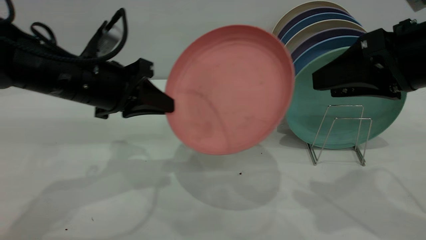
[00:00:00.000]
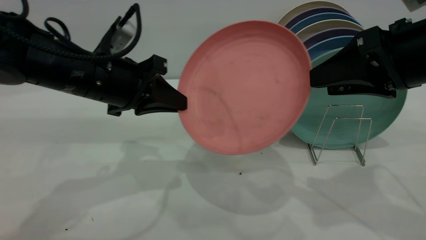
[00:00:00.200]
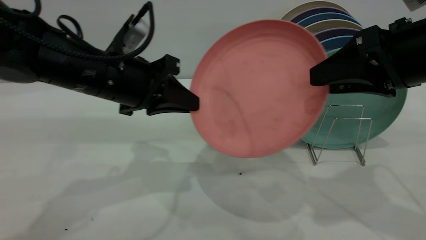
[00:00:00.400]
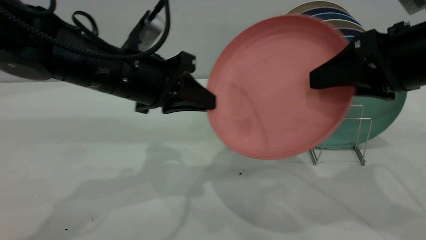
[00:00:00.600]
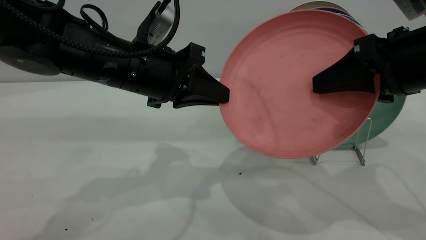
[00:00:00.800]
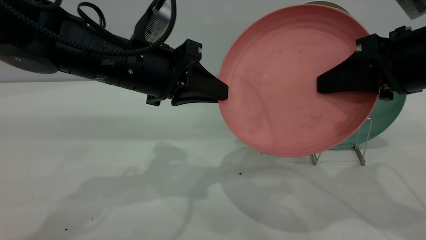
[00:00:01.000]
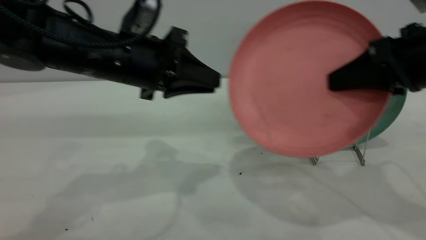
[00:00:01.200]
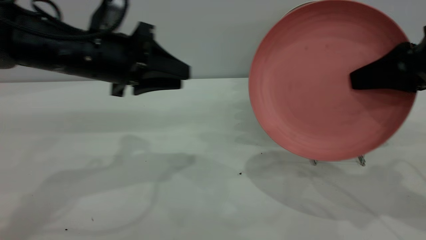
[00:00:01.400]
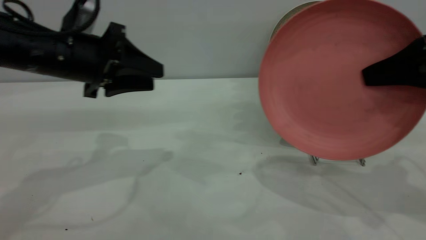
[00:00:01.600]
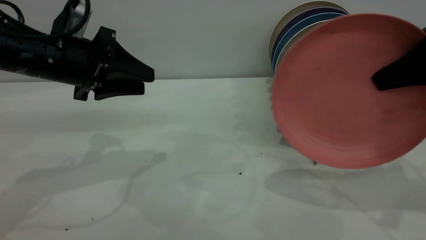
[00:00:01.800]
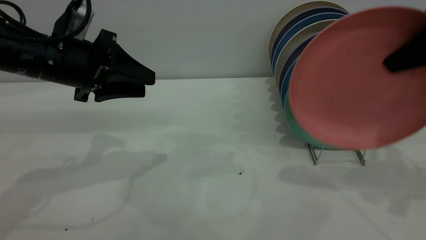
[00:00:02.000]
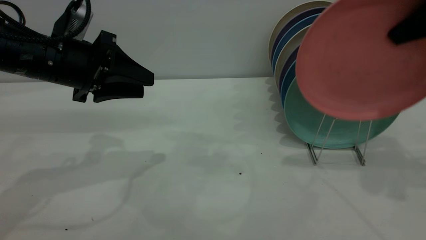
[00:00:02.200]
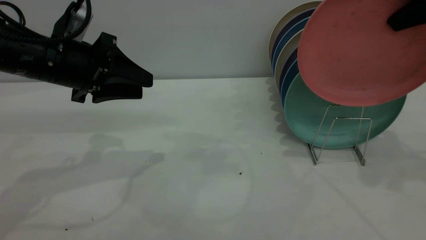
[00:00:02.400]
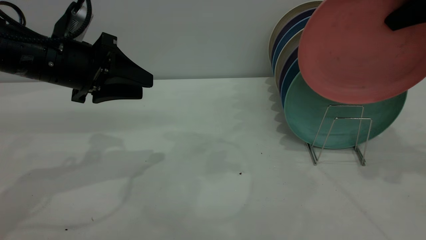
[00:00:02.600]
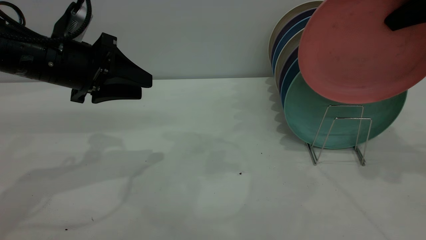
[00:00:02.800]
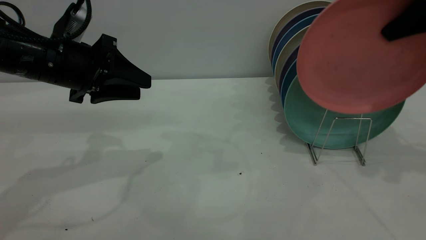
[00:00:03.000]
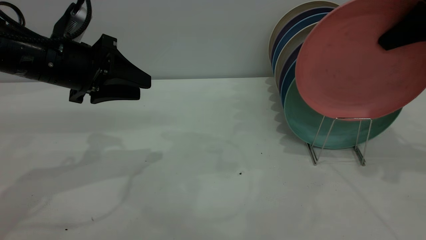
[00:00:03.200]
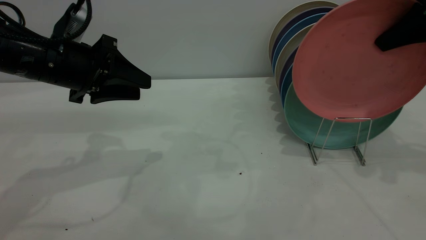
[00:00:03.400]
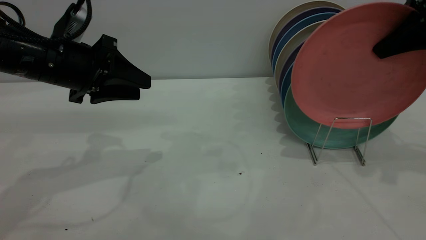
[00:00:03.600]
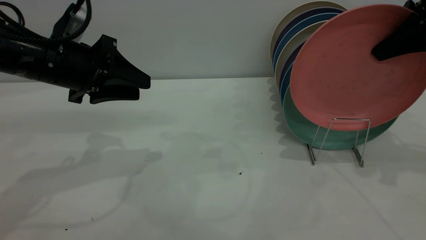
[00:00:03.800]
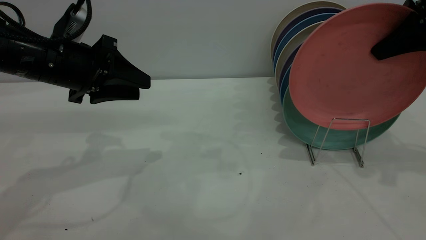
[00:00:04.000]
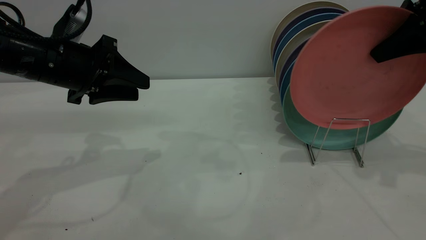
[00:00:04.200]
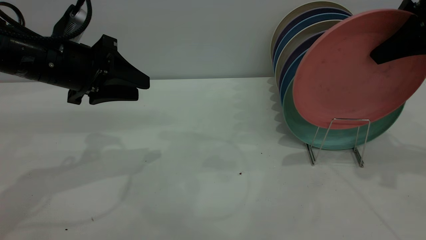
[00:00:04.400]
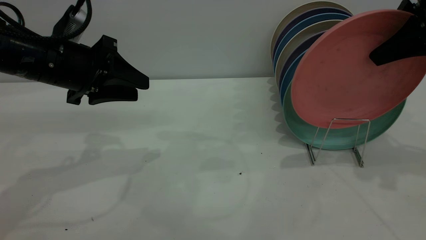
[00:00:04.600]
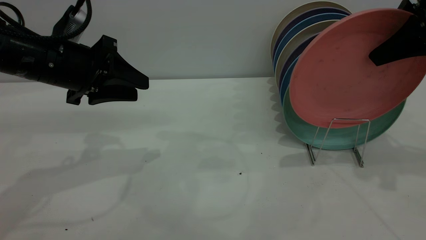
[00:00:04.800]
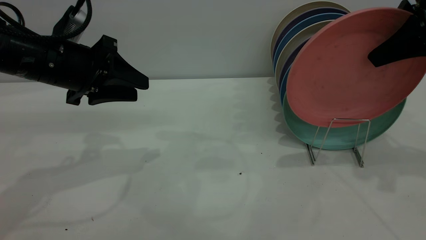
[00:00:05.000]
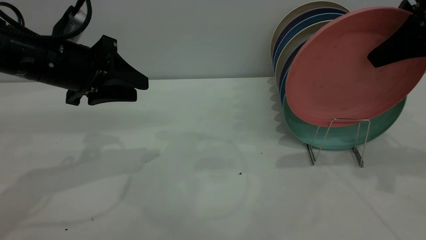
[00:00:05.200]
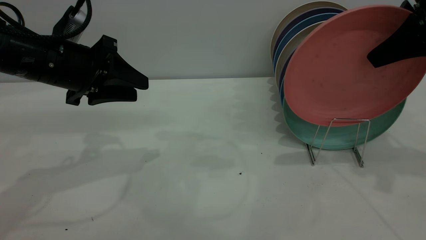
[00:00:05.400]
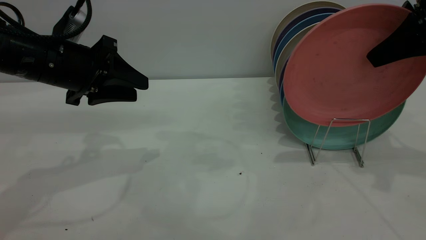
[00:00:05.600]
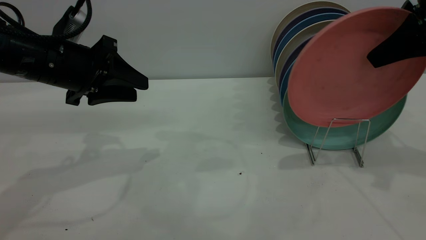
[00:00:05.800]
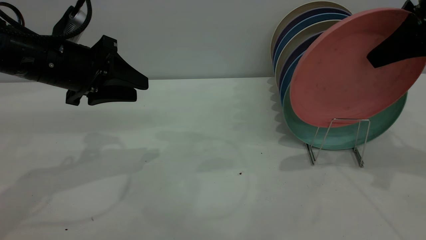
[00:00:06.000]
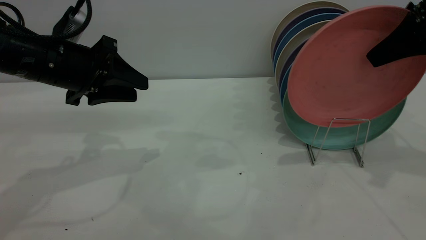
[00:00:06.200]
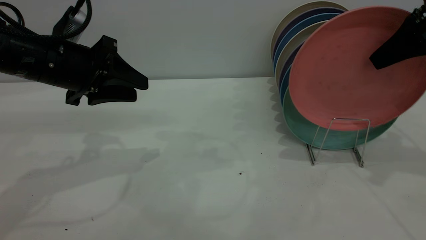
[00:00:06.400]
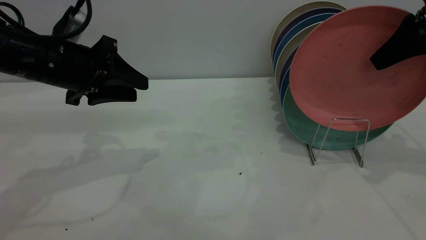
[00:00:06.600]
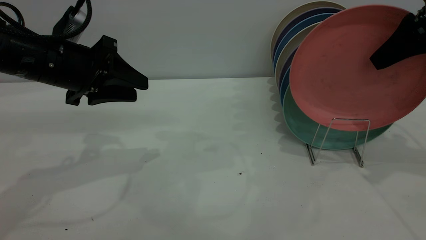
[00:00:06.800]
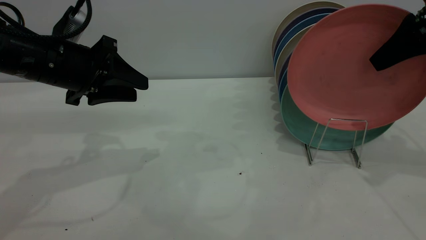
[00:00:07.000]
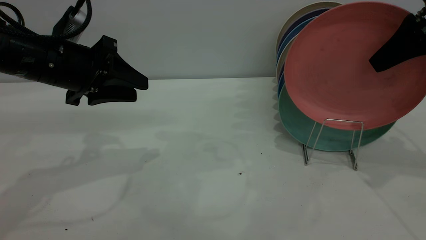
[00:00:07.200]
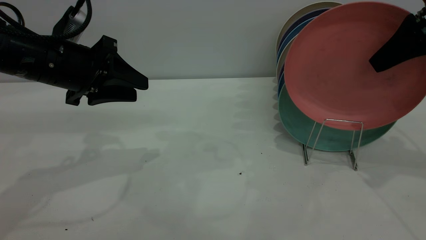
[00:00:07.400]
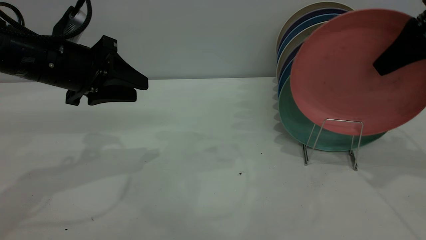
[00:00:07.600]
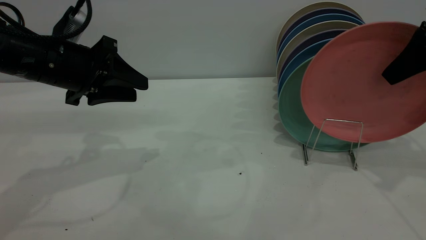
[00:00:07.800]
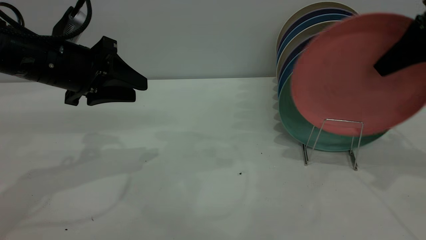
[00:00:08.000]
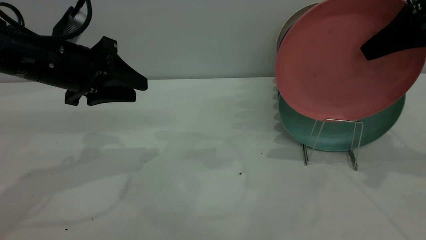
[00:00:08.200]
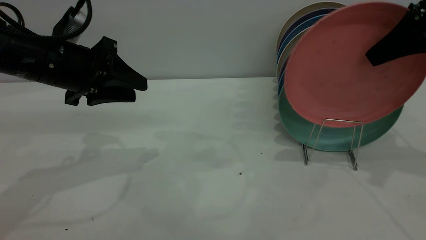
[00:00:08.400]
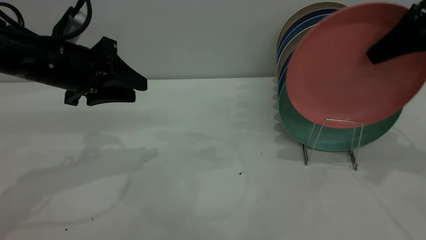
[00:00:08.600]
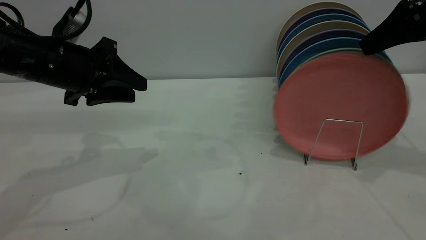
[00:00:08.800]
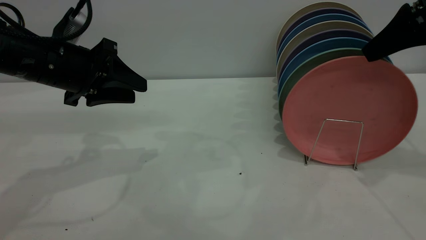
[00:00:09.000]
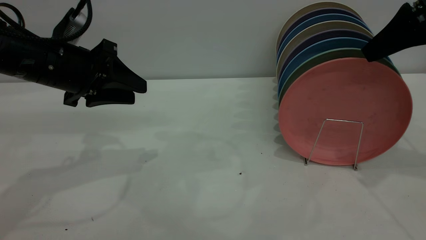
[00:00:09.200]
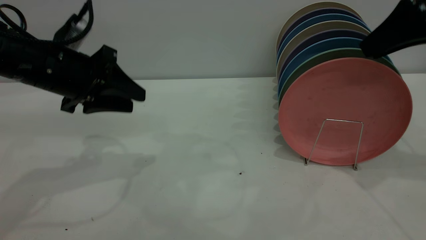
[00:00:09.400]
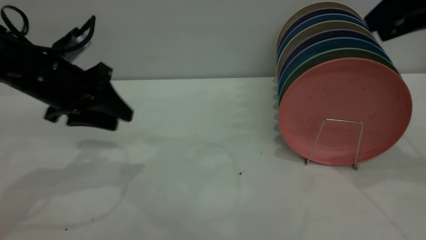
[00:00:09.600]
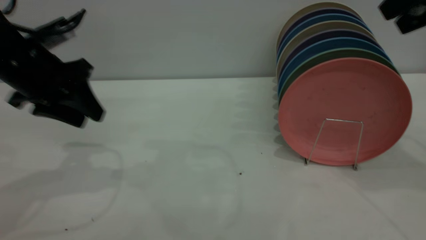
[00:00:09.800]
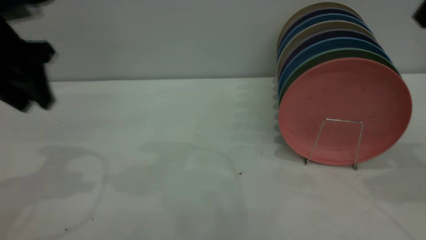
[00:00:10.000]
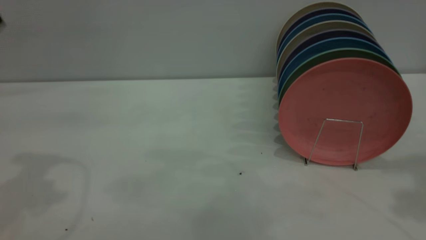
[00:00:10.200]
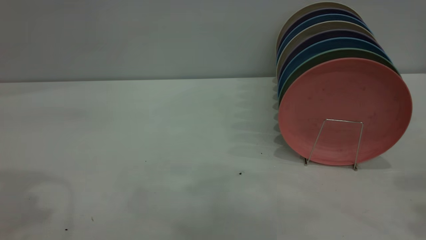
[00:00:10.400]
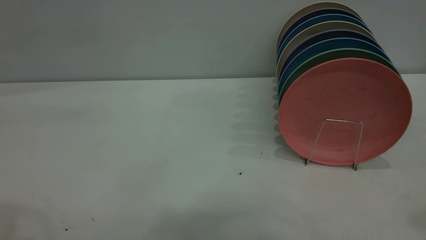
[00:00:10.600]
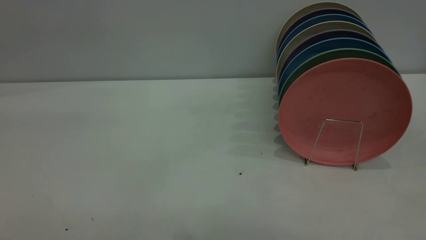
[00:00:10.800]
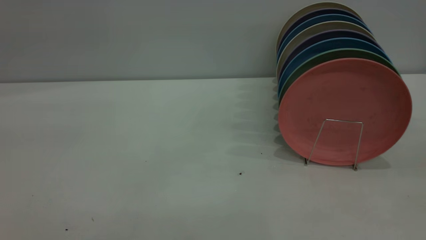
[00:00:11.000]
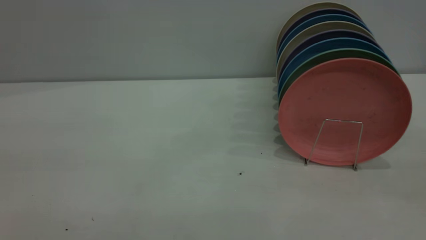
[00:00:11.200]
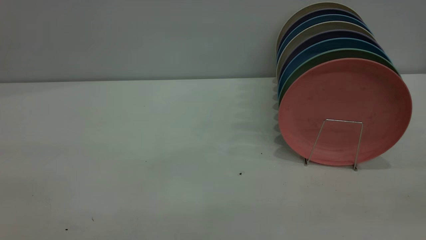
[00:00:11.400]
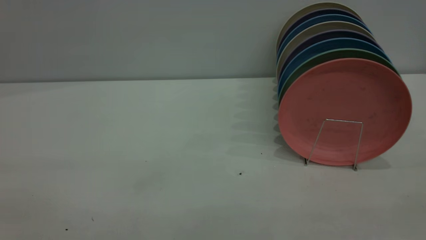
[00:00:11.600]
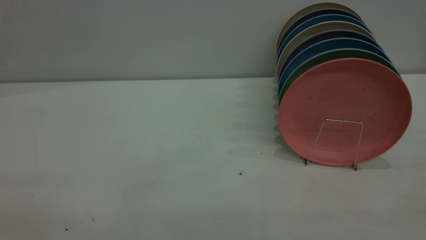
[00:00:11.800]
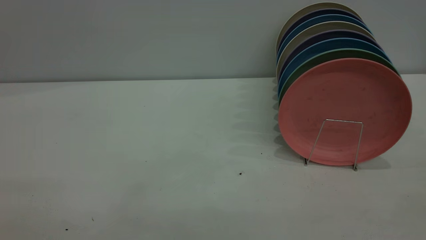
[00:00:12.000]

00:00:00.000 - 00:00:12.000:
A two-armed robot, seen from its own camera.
Task of the whole recording: the left gripper grasp the pink plate, the left gripper pass the pink plate to the right gripper, and the right gripper place the pink plate on the plate rack.
Step, 00:00:01.400 - 00:00:09.600: Place the plate on the shelf.
00:00:00.000 - 00:00:01.600: The right gripper travels to the right by roughly 5 cm, and closes up. Meanwhile the left gripper changes place by roughly 5 cm, and opens its fingers.
00:00:01.600 - 00:00:03.000: The right gripper heads forward, covering roughly 10 cm.
00:00:03.000 - 00:00:04.400: The right gripper opens up.
00:00:04.400 - 00:00:06.000: The right gripper opens its fingers.
00:00:07.600 - 00:00:09.000: The grippers stay close to where they were, moving slightly.
00:00:09.000 - 00:00:10.400: Both grippers move upward and backward, approximately 25 cm.

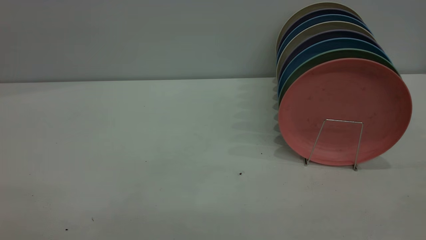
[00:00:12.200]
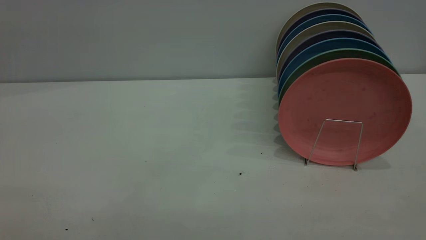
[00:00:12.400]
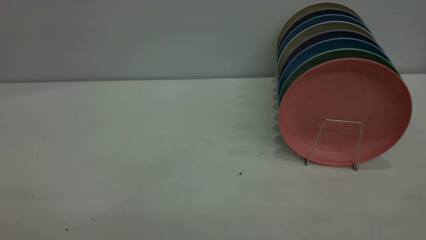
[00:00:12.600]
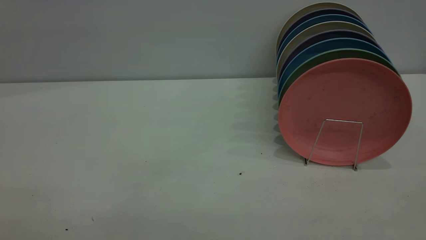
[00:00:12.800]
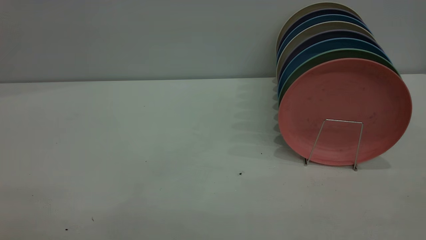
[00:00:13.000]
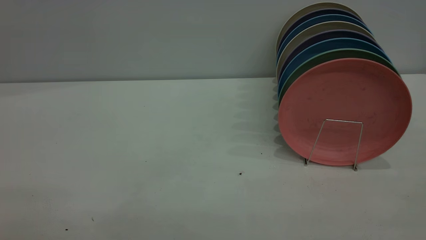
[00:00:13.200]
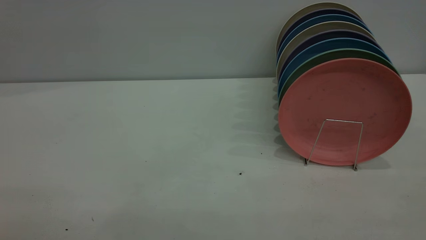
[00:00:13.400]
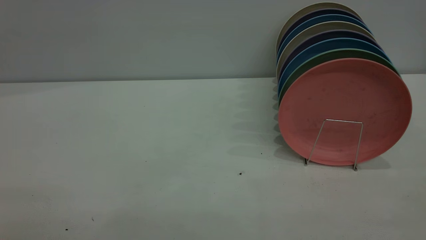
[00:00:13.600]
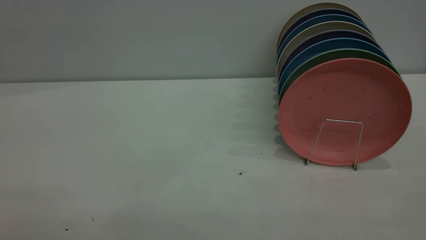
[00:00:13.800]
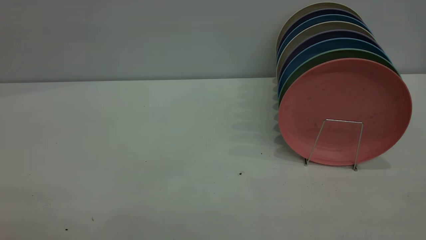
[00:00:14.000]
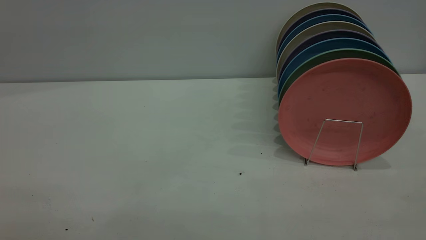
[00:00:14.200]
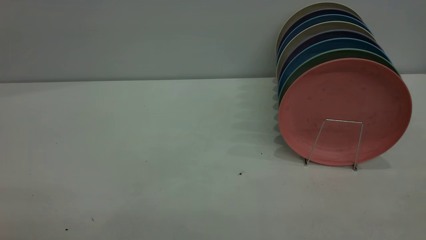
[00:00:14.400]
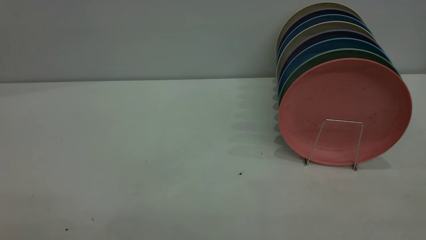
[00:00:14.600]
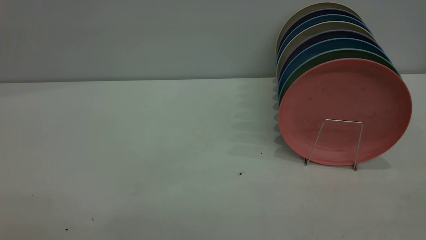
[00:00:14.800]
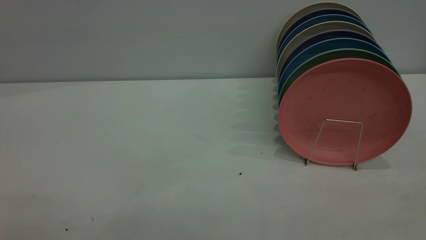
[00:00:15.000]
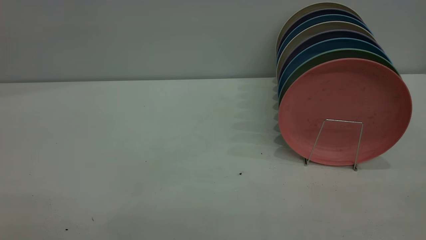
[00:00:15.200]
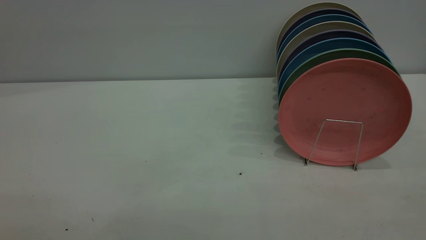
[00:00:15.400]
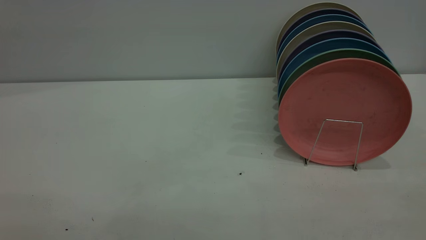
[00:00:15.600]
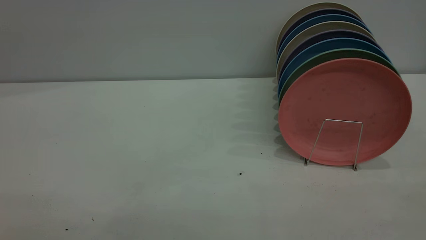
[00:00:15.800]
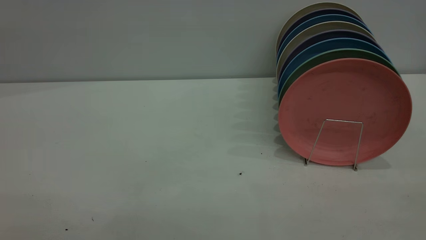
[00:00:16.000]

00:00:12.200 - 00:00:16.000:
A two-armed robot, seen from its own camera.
Task of the whole recording: the left gripper grasp the pink plate, the left gripper pass the pink plate to the right gripper, and the right gripper place the pink plate on the plate rack.
00:00:13.400 - 00:00:14.800: Neither gripper changes place.
00:00:14.800 - 00:00:16.000: Neither gripper changes place.
